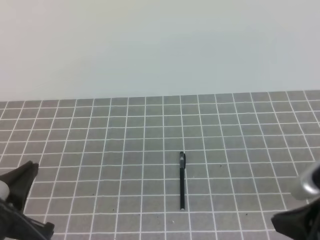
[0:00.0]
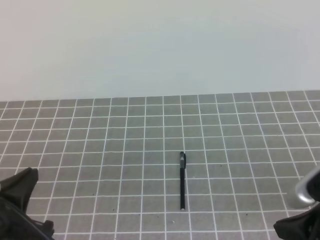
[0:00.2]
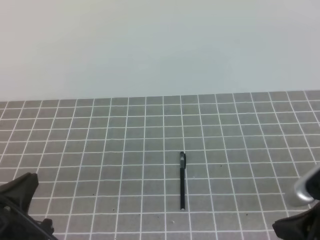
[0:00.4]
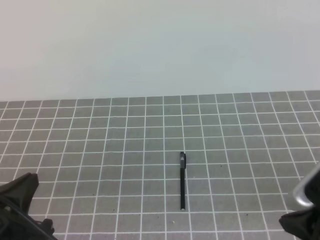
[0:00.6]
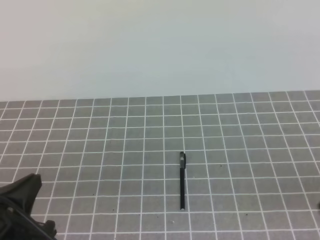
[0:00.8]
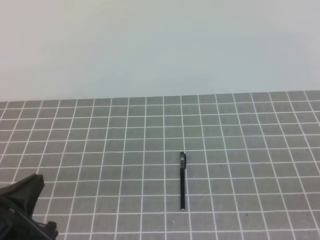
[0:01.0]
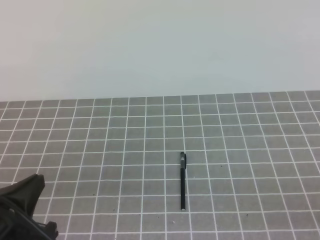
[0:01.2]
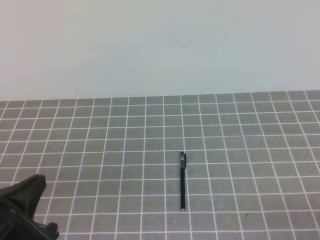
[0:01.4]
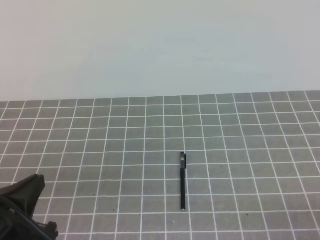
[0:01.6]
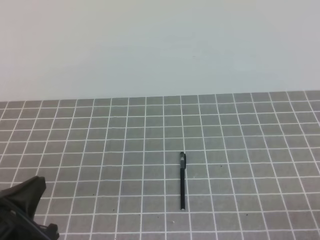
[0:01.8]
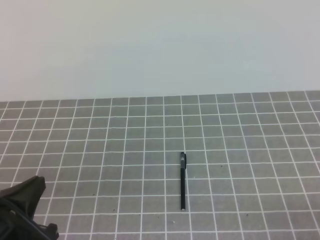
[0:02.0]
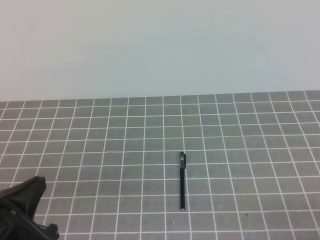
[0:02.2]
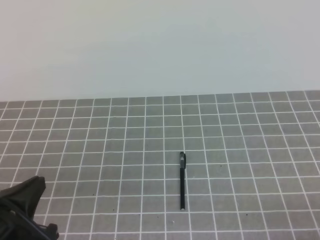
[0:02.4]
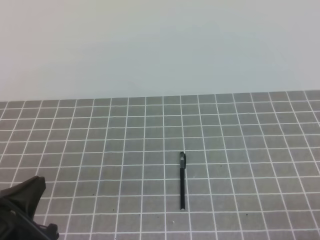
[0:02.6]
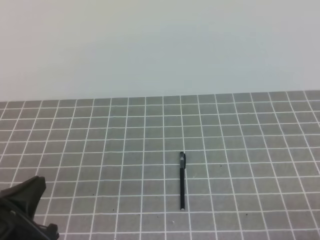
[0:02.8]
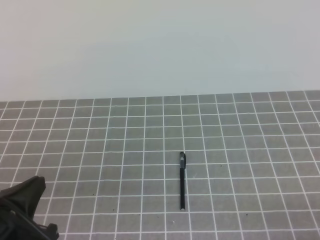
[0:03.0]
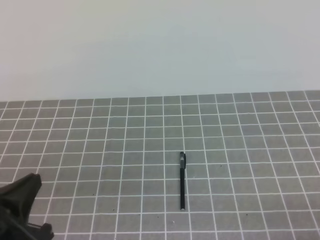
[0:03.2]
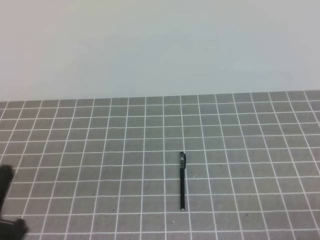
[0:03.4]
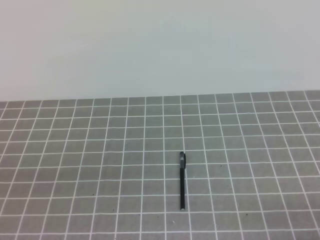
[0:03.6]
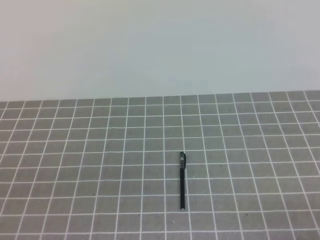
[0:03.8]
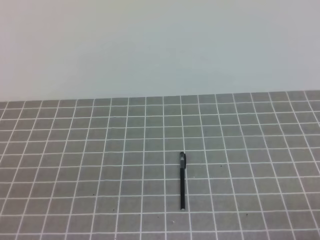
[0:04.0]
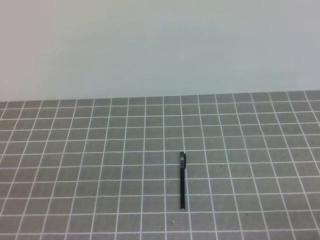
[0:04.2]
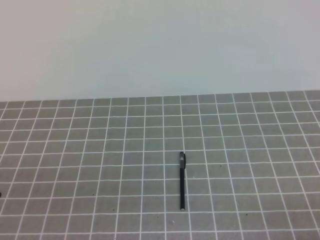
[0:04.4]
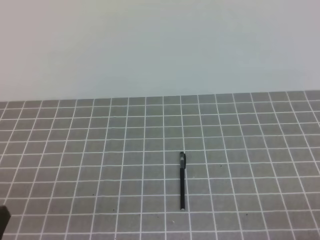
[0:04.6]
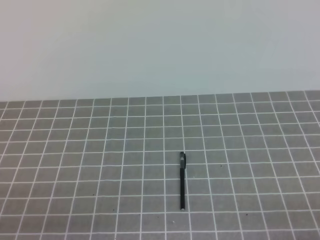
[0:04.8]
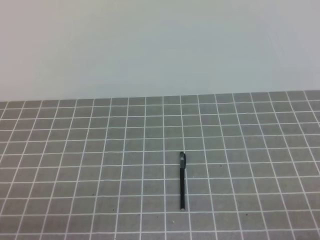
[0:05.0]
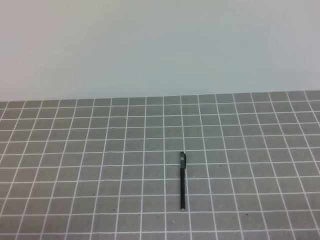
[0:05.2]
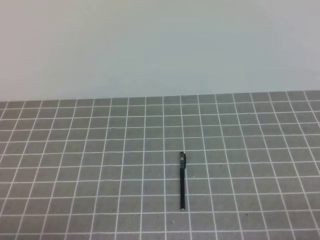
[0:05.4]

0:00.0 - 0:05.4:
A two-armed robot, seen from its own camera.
Task of the whole recording: on the grey tablecloth, hold the pen cap in one hand and the pen in the other, then cover the pen cap.
Step, 0:00.0 - 0:05.4: Put the cap on the pen.
0:00.0 - 0:01.4: The right gripper moves to the right, backward and downward, approximately 15 cm.
0:02.8 - 0:04.0: The left gripper shifts roughly 5 cm backward.
